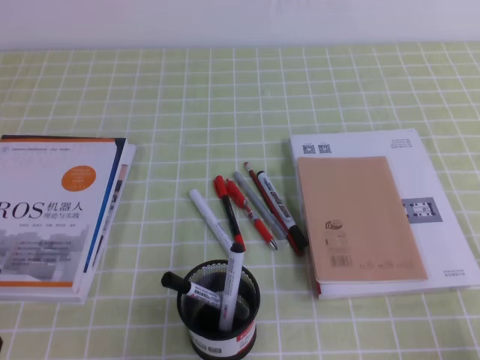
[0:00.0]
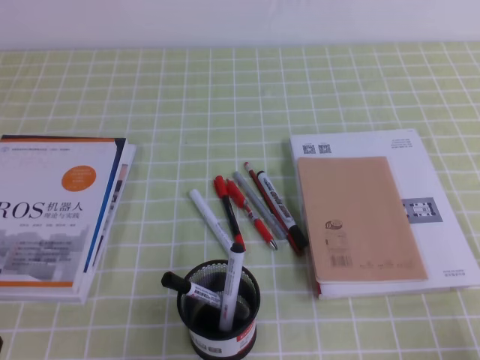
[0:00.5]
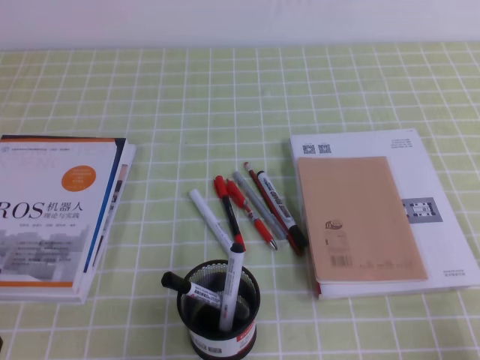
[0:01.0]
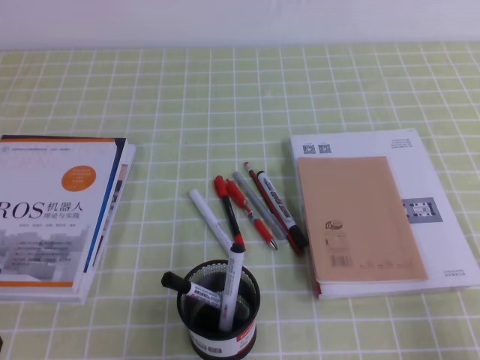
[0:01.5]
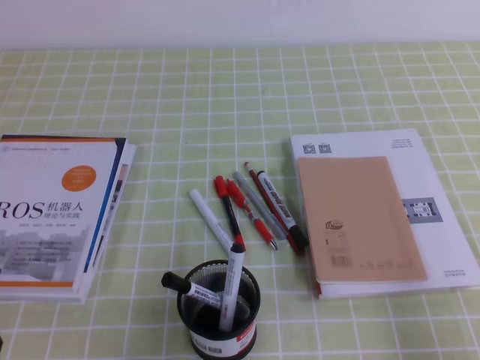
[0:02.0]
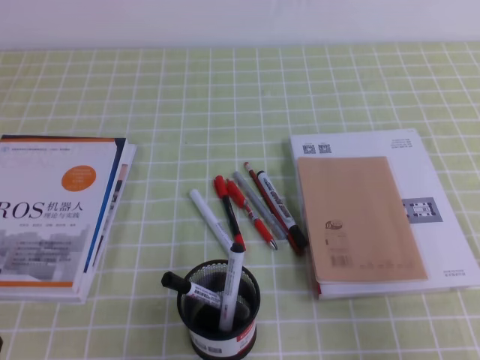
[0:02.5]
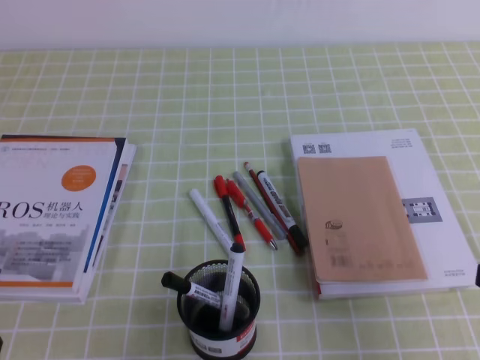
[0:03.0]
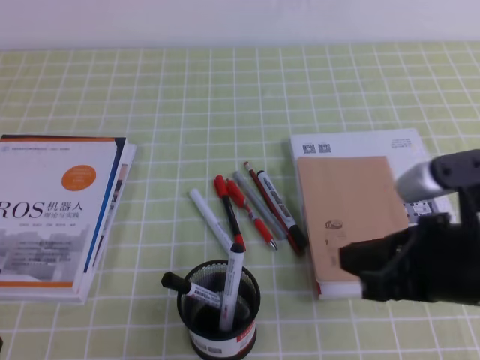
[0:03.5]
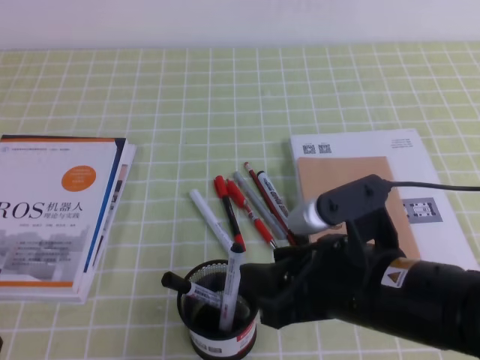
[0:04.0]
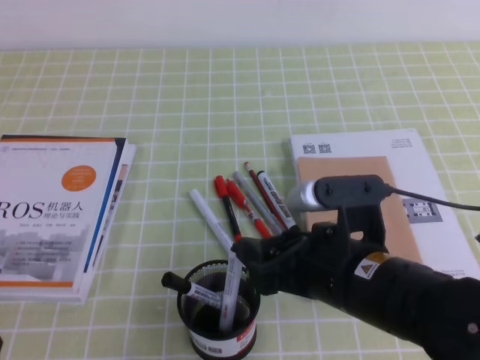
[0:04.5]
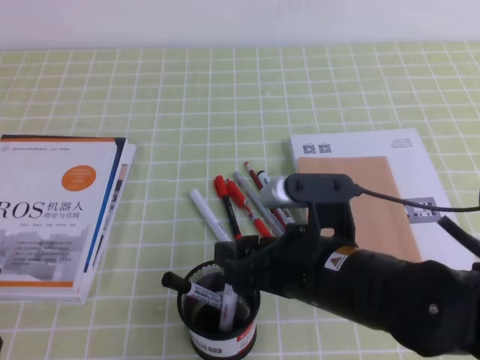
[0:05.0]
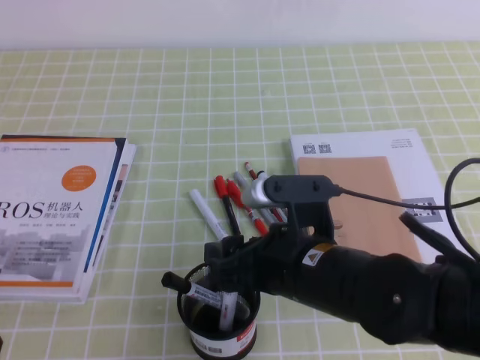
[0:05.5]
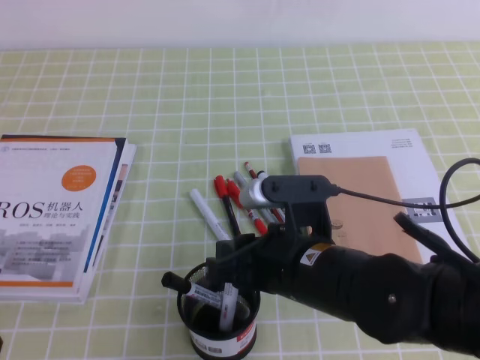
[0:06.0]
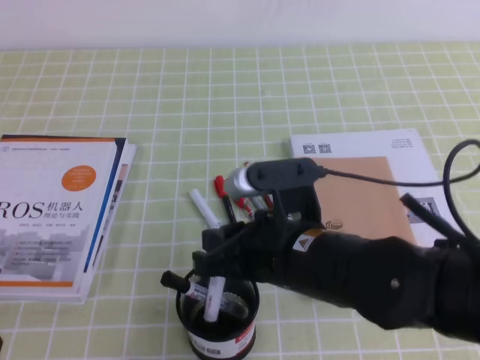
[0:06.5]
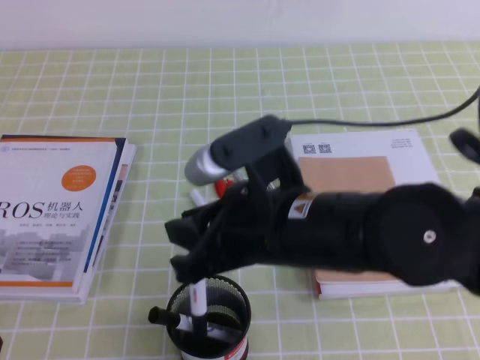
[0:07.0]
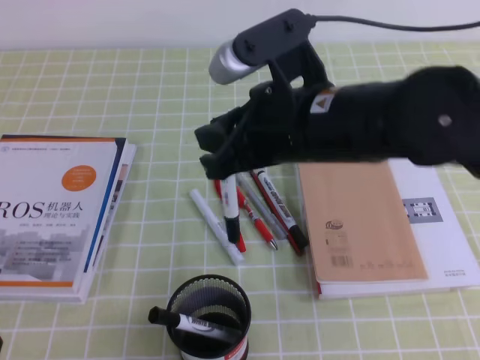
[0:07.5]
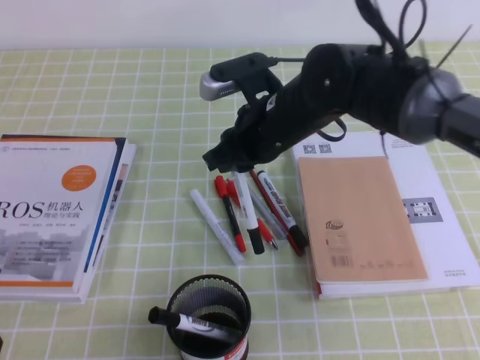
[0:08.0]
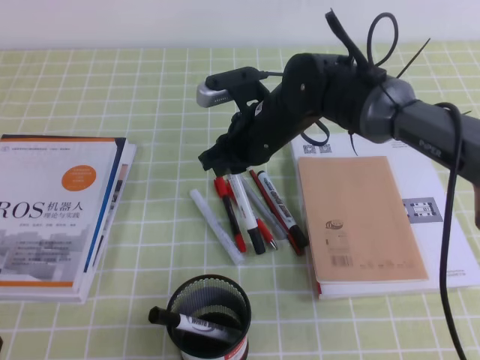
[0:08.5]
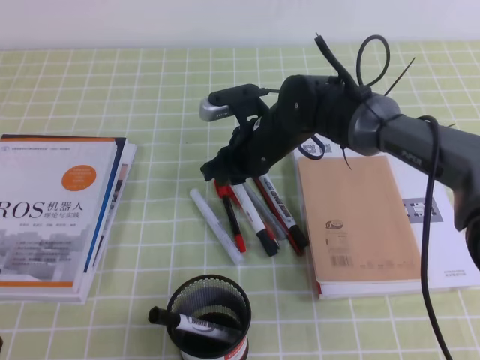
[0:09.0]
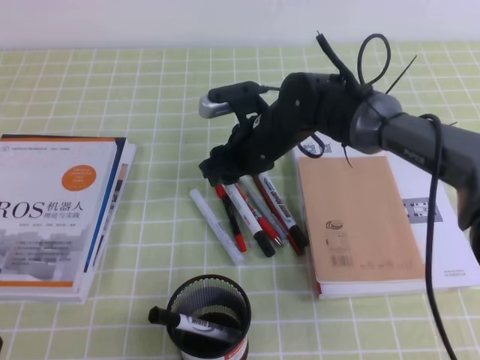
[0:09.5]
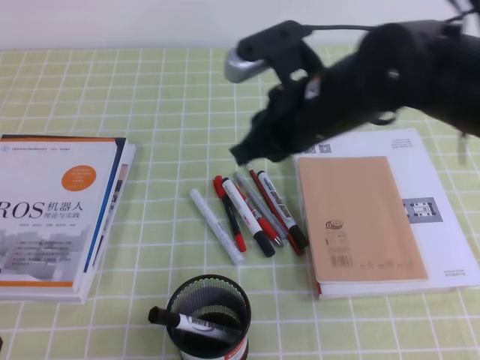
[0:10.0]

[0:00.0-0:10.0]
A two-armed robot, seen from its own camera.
0:02.0 to 0:04.0: The right gripper goes about 25 cm to the left and forward, and opens.
0:04.0 to 0:06.0: The right gripper travels to the left by roughly 5 cm, and opens, then closes once more.
0:06.0 to 0:08.0: The right gripper goes about 15 cm forward.
0:08.0 to 0:10.0: The right gripper travels downward and back again, approximately 5 cm each way, and opens and closes again.

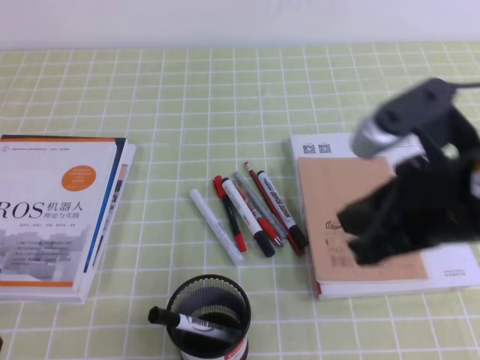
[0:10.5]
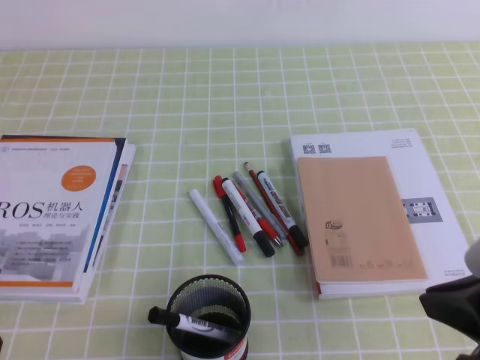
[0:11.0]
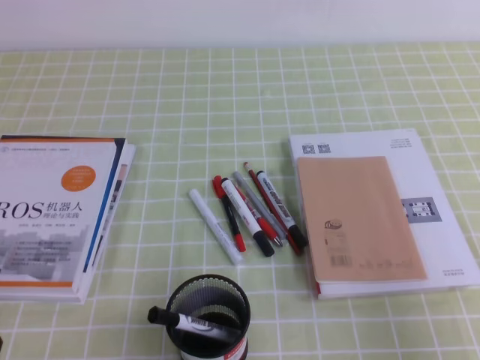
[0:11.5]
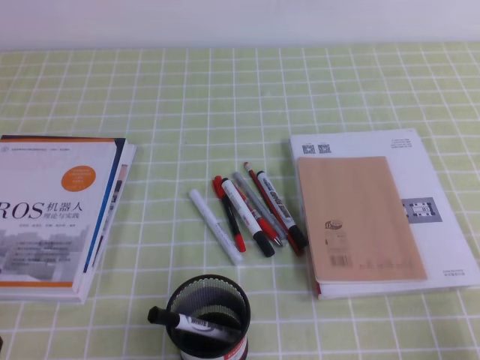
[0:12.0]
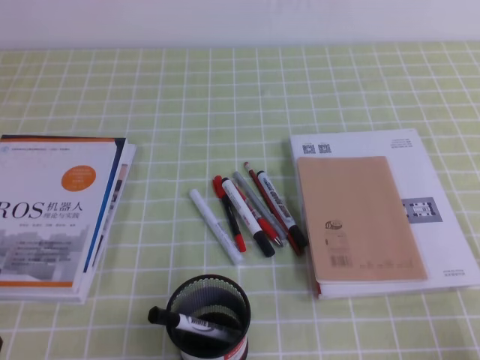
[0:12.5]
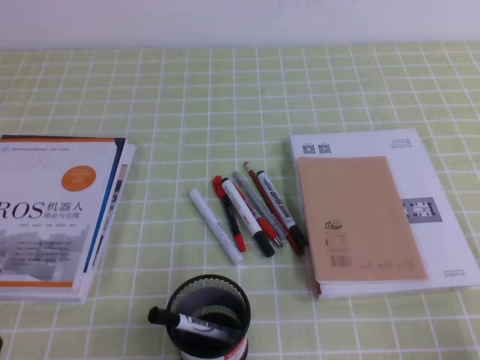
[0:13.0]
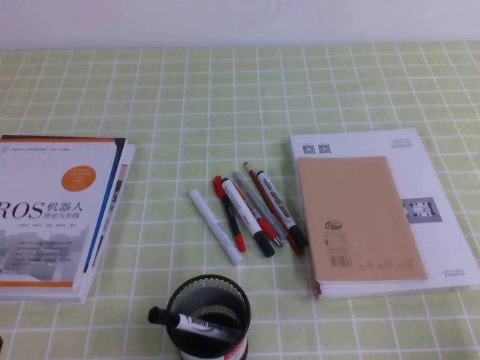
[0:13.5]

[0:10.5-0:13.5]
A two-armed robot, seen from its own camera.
Step, 0:10.5 to 0:13.5: Pick up the pen from the pen holder.
0:10.5 to 0:12.0: The right gripper shifts approximately 25 cm to the right, downward and backward.

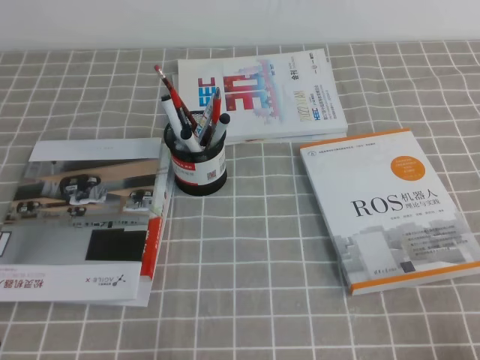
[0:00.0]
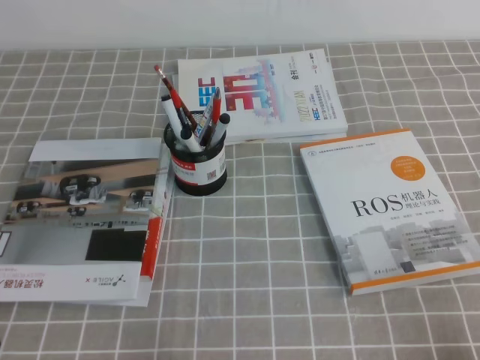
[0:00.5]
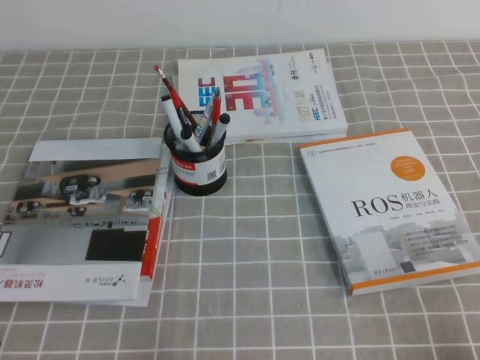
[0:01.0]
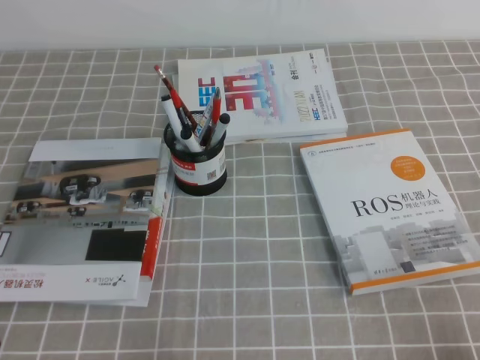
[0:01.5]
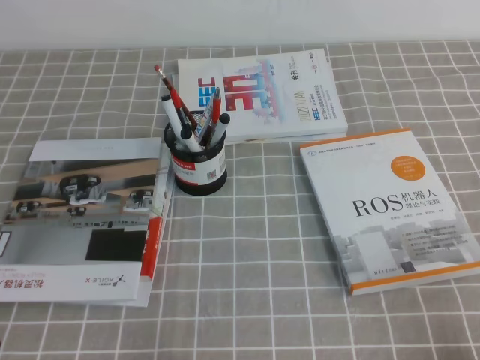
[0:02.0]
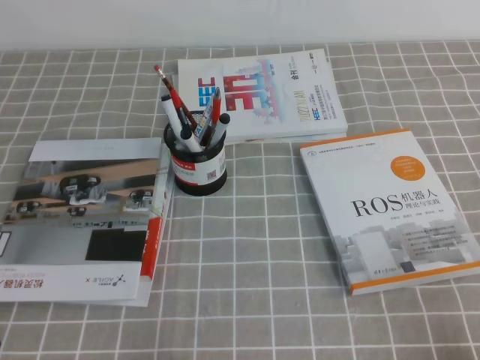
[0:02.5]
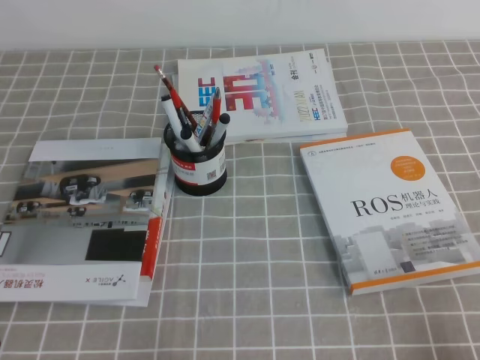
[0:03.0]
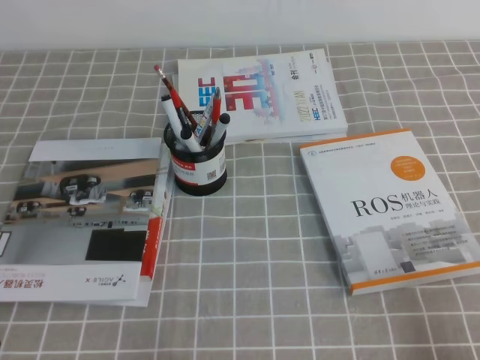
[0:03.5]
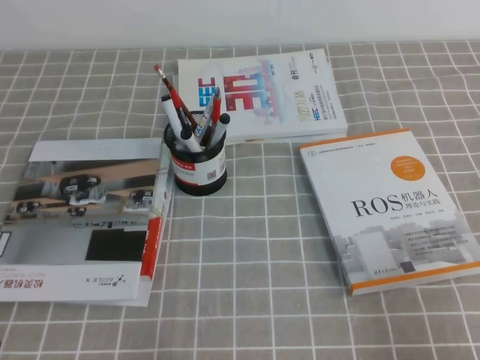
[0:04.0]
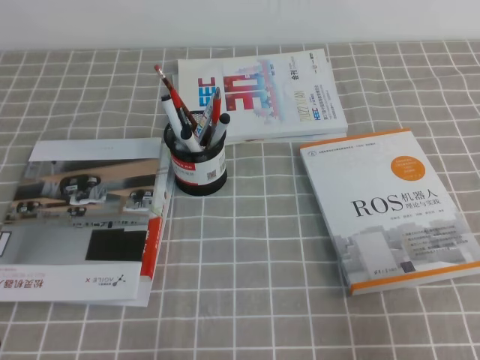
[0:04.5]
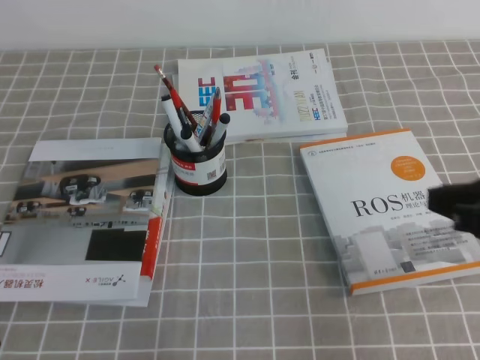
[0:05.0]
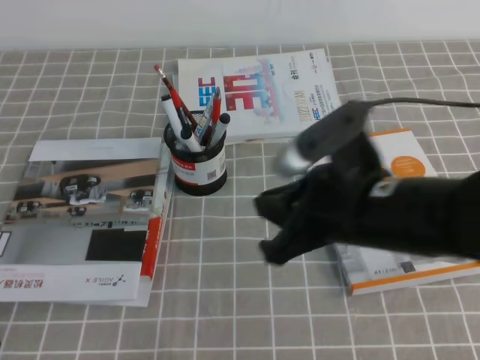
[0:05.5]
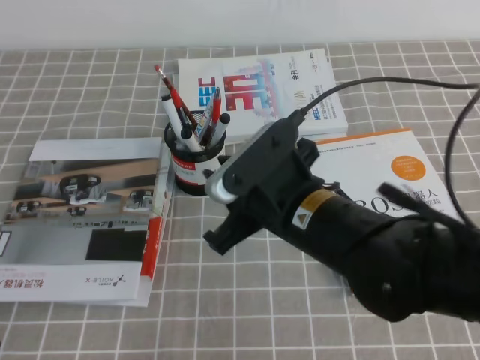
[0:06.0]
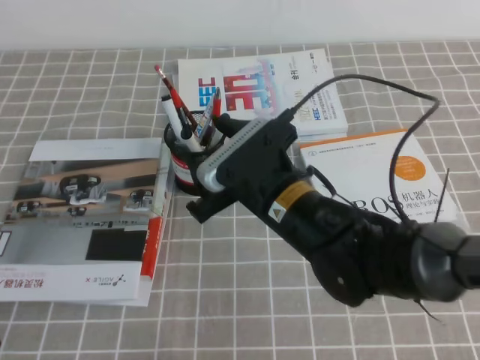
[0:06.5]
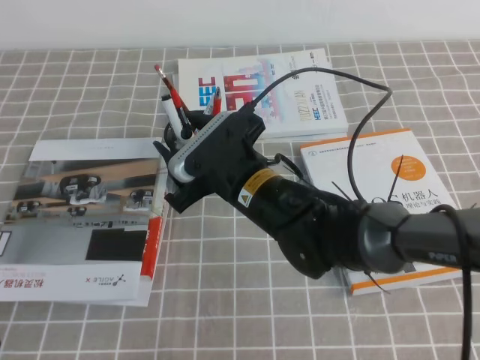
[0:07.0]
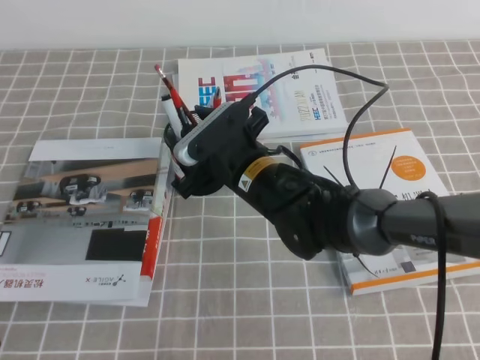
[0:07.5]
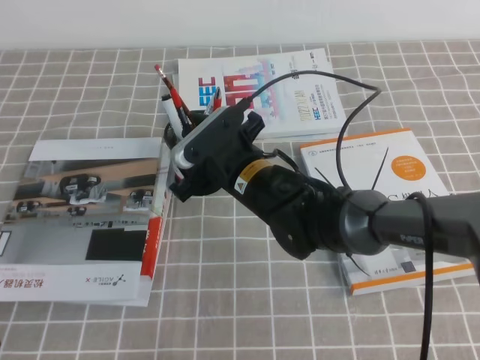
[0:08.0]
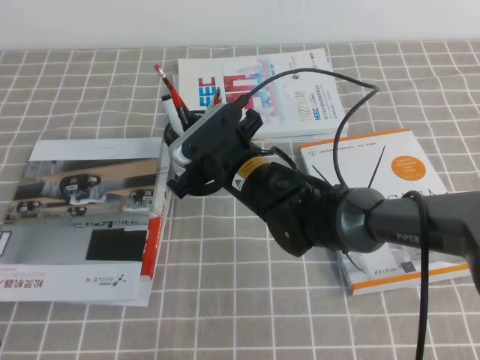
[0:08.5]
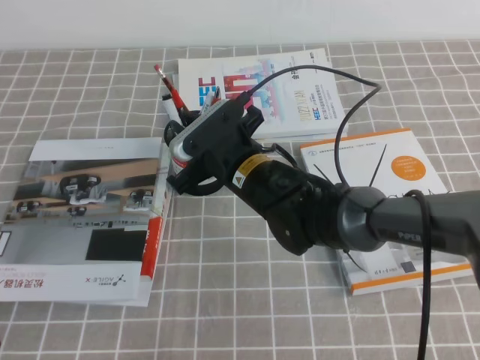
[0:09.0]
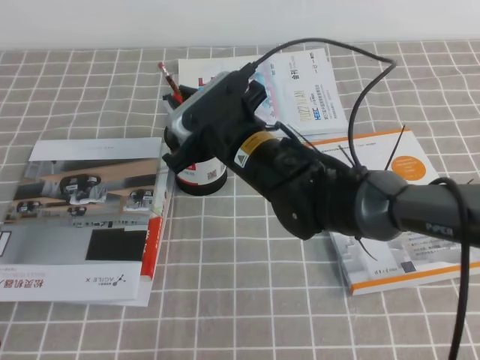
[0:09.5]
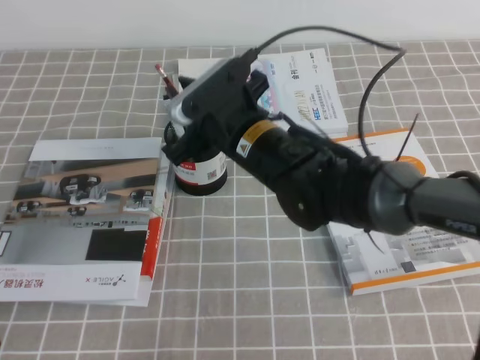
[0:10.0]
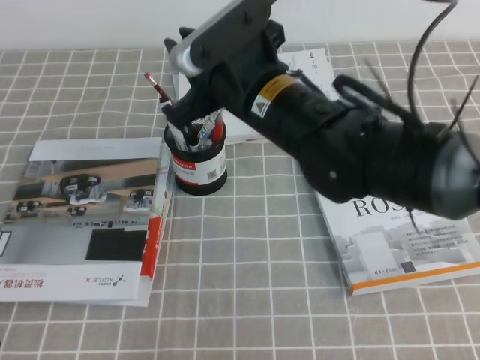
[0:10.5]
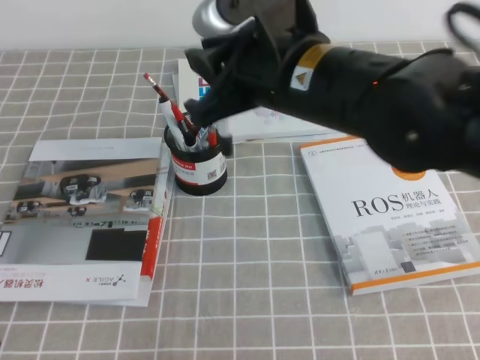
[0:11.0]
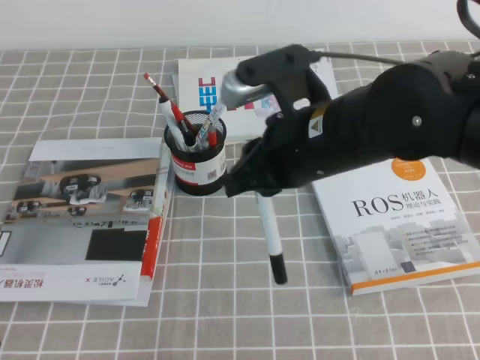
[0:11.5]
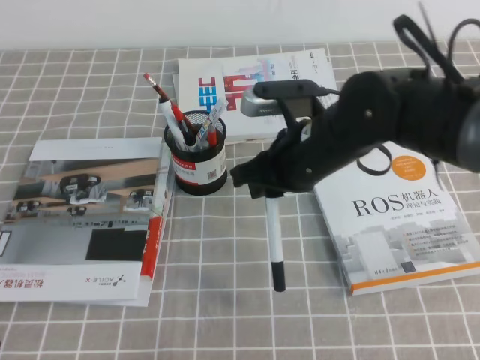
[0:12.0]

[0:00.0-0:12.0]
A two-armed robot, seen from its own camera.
0:00.0 to 0:02.0: Both grippers stay put.
0:04.0 to 0:06.0: The right gripper is displaced to the left and forward by some 30 cm.
0:06.0 to 0:08.0: The right gripper heads forward, downward and to the left, covering some 15 cm, and opens.
0:08.0 to 0:10.0: The right gripper heads upward, covering approximately 5 cm, and closes.
0:10.0 to 0:12.0: The right gripper travels to the right by roughly 5 cm, and travels upward and back again, roughly 10 cm each way.

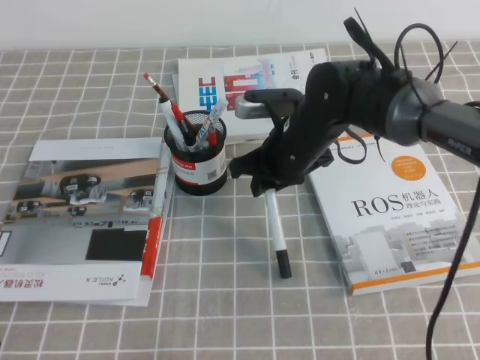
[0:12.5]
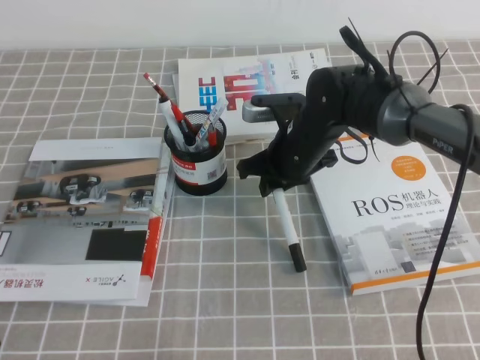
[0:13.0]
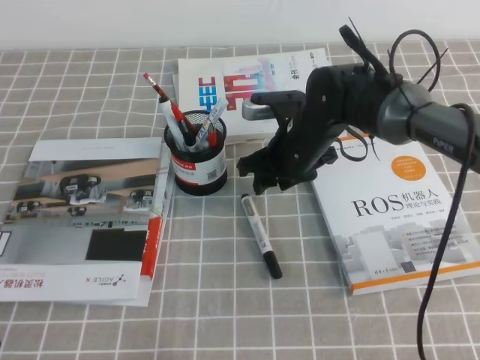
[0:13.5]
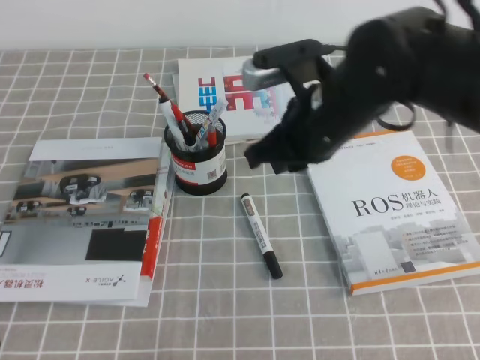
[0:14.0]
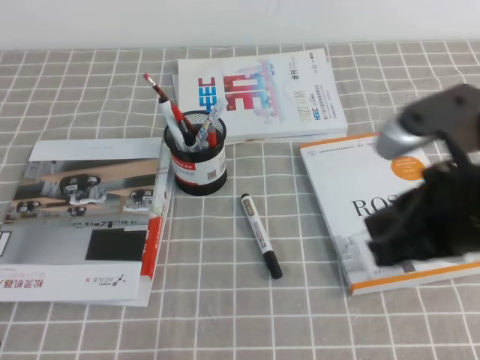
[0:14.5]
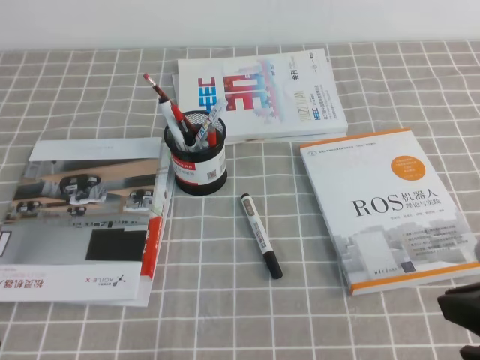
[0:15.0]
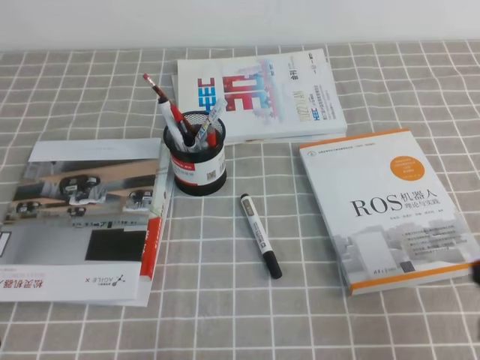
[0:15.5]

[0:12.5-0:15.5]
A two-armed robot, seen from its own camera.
0:12.5 to 0:14.0: The right gripper goes some 10 cm upward and backward, and opens and closes again.
0:14.0 to 0:15.5: The right gripper moves backward and to the right, approximately 30 cm.
